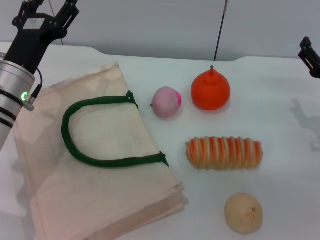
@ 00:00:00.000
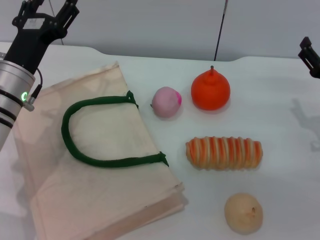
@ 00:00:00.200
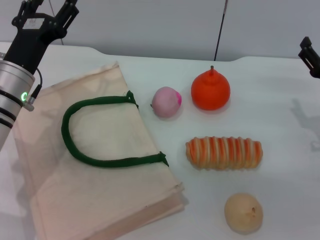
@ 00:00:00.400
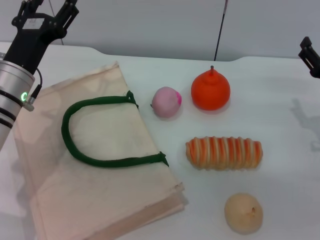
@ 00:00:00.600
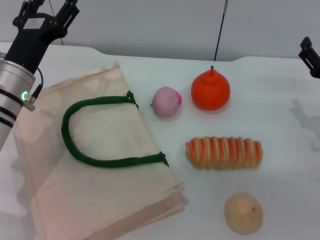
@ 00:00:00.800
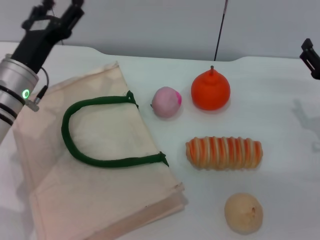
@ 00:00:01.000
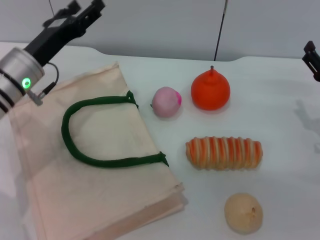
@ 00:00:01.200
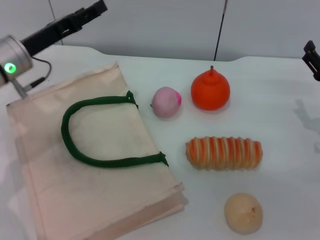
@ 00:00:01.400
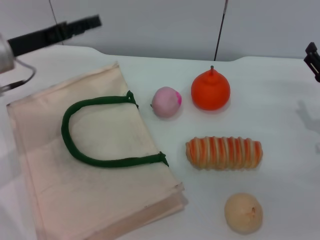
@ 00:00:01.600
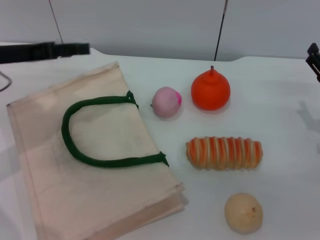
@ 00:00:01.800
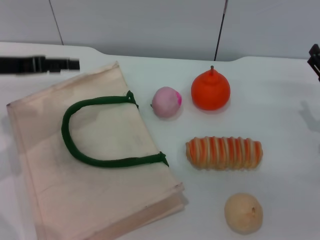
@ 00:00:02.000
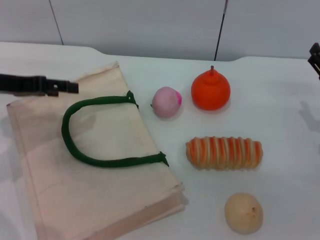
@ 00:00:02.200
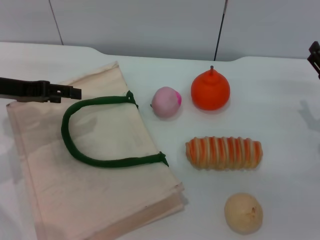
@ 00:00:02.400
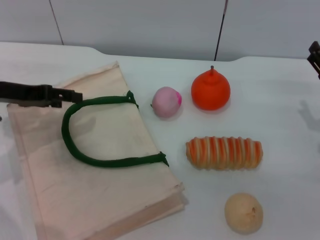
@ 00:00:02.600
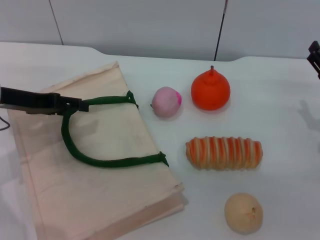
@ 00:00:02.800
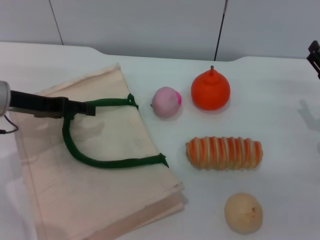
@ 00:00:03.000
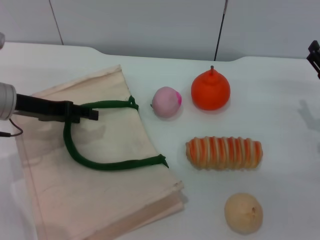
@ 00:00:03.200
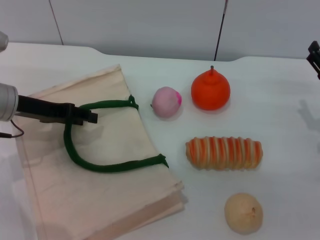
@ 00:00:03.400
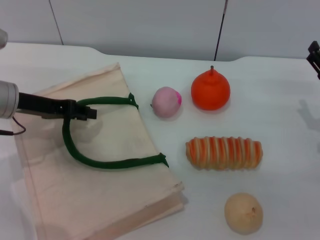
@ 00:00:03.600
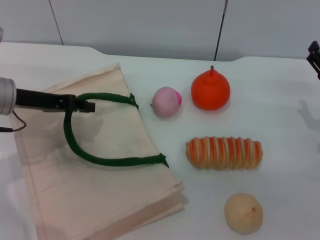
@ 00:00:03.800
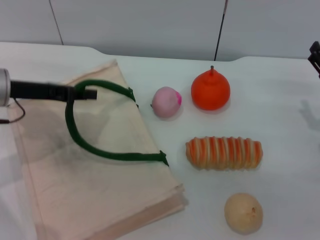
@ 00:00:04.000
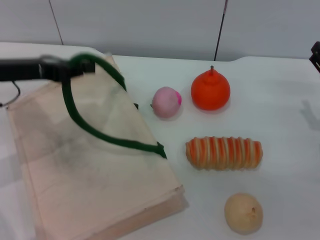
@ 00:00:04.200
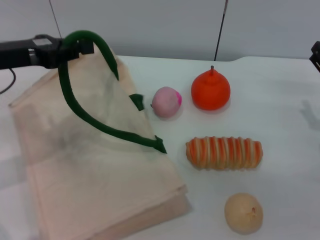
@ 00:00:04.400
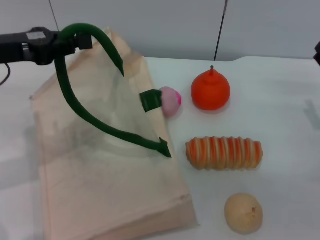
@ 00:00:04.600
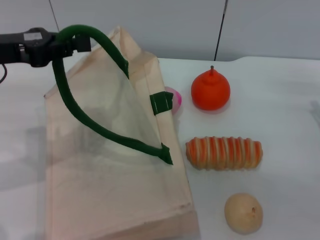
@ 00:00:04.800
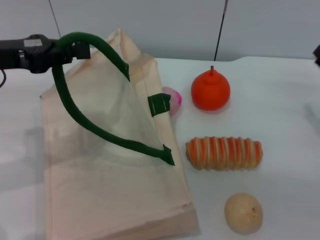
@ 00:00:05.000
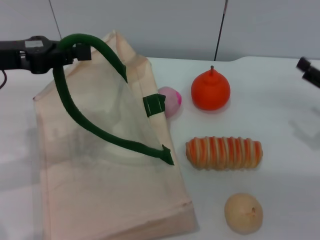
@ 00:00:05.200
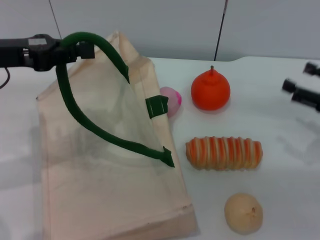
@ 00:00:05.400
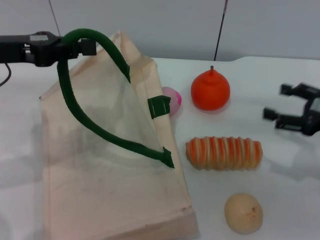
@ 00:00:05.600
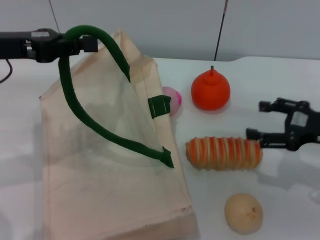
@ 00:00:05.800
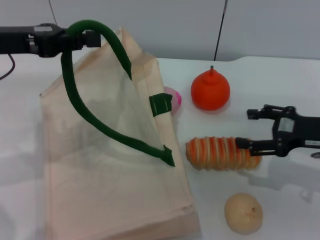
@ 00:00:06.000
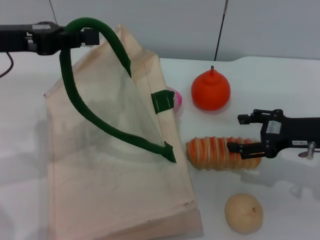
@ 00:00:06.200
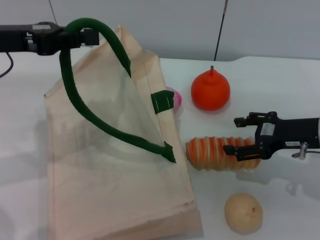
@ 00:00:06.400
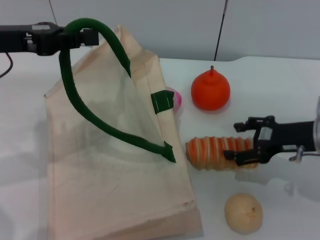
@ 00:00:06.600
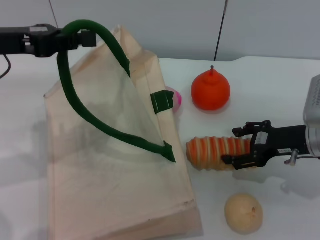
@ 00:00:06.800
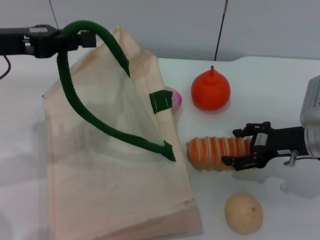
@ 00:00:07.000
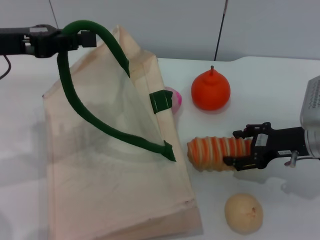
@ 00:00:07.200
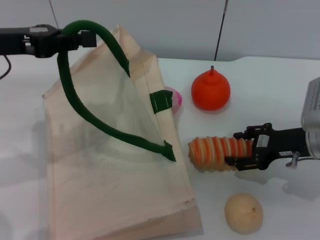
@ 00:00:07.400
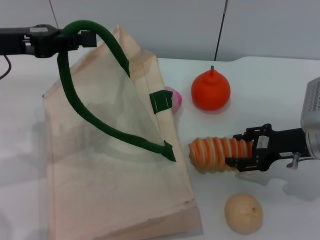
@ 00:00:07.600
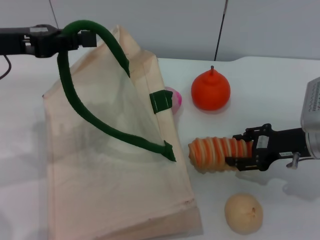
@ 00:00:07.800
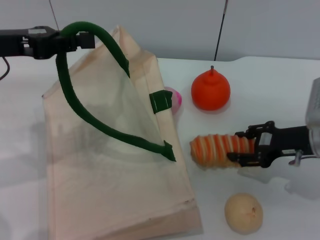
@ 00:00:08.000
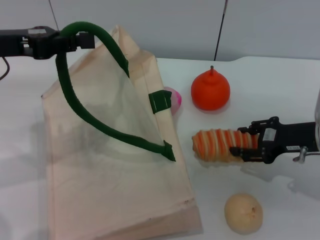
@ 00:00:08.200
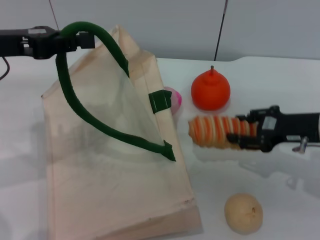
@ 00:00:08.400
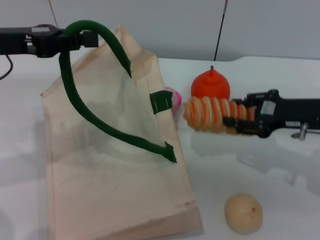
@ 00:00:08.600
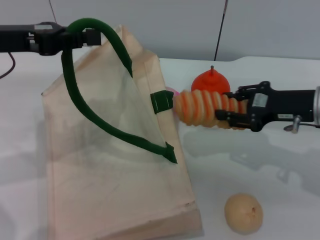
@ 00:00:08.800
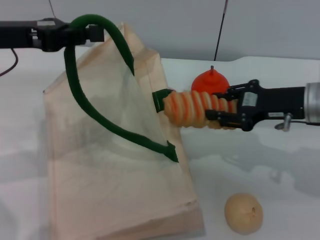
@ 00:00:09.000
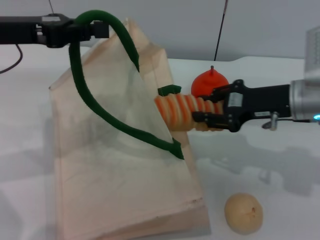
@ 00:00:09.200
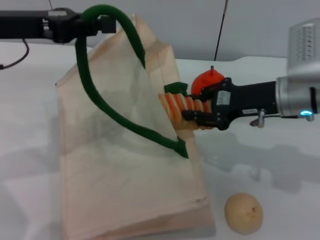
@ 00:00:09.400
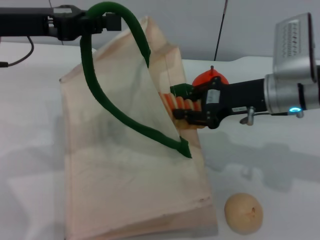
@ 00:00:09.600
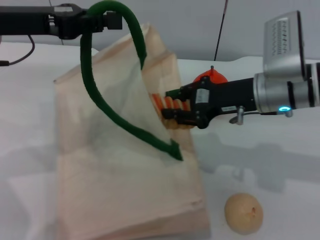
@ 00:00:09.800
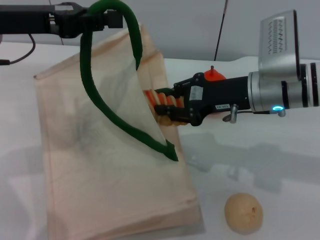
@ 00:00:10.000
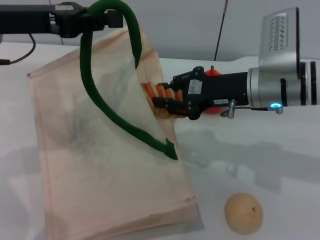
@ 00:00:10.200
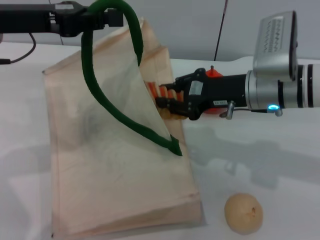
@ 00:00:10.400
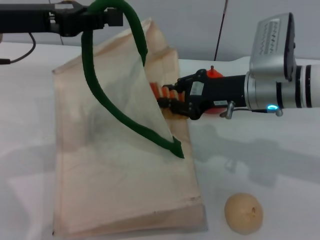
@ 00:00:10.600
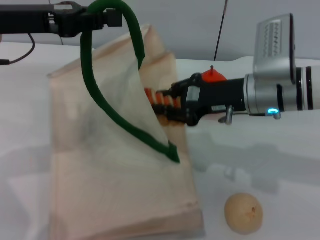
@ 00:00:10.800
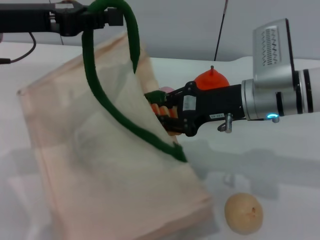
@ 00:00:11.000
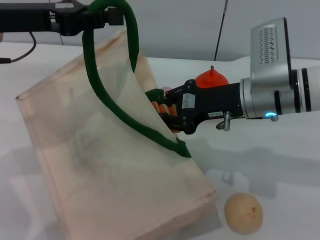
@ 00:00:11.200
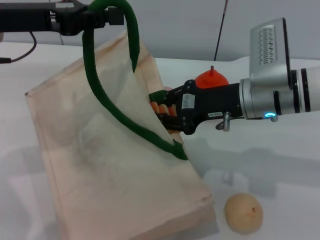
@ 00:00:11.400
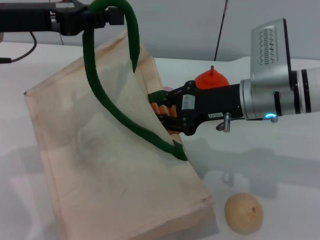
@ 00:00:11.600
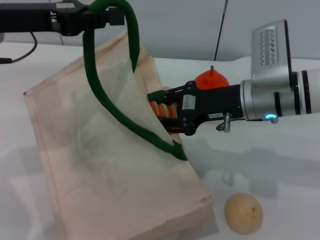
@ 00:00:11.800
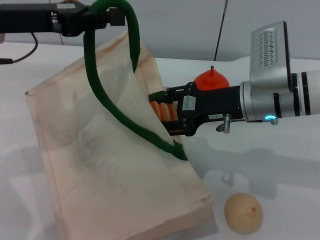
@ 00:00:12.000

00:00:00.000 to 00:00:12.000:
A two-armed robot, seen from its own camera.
Task of the whole recording: pick up the bread from the table and place it in the white handbag.
Step, 00:00:00.000 to 00:00:04.600: Lift the woven bag with the left gripper to open it.
Step, 00:00:05.000 to 00:00:08.400: Pick up the bread with the right gripper.
00:00:00.000 to 00:00:01.600: The left gripper shifts approximately 10 cm upward and to the left.
00:00:03.000 to 00:00:04.400: The left gripper is displaced upward by about 5 cm, and closes.
00:00:06.000 to 00:00:07.600: The grippers stay close to where they were, moving slightly.
00:00:07.600 to 00:00:09.000: The right gripper travels upward by approximately 5 cm, and closes its fingers.
00:00:09.000 to 00:00:10.400: The right gripper heads to the left, covering roughly 10 cm.
00:00:10.400 to 00:00:12.000: The grippers stay close to where they were, moving slightly.

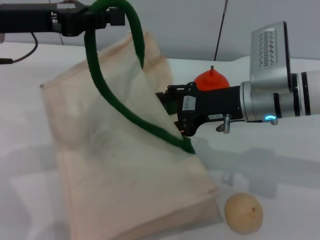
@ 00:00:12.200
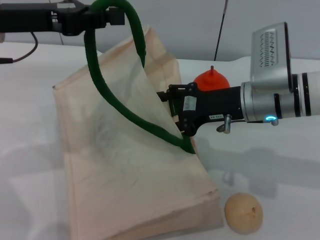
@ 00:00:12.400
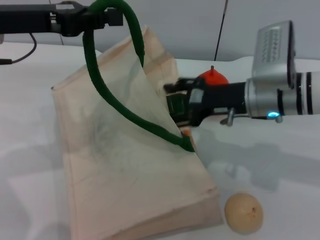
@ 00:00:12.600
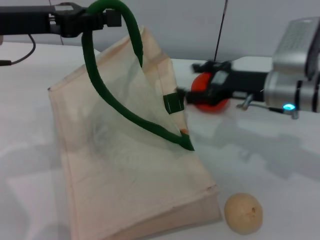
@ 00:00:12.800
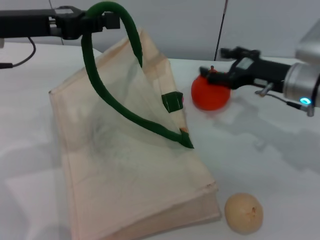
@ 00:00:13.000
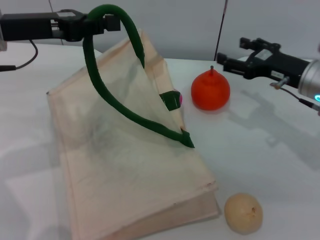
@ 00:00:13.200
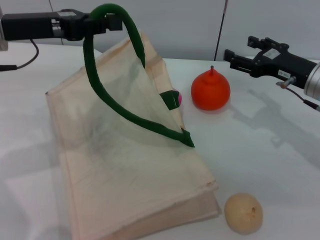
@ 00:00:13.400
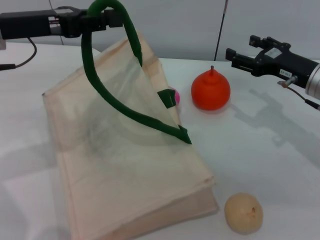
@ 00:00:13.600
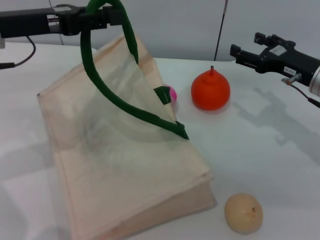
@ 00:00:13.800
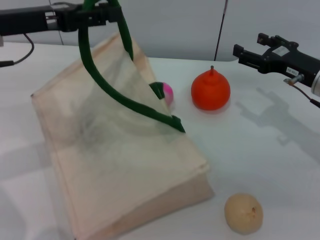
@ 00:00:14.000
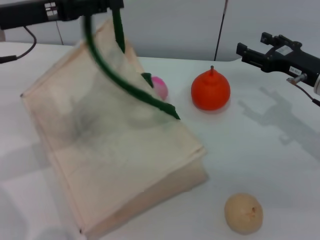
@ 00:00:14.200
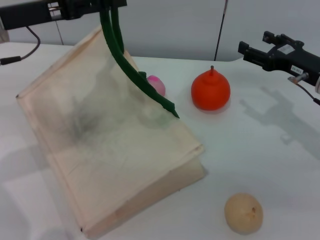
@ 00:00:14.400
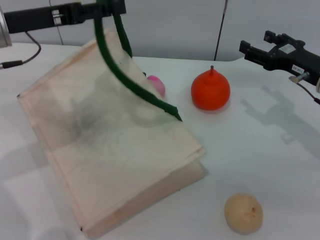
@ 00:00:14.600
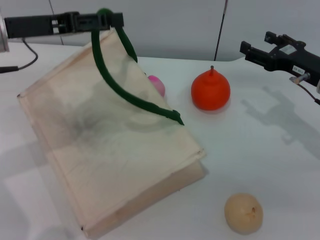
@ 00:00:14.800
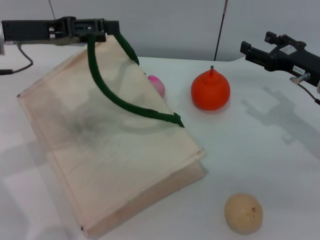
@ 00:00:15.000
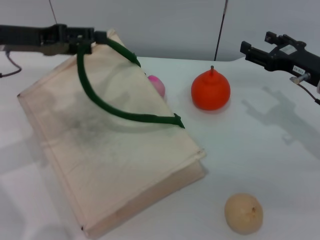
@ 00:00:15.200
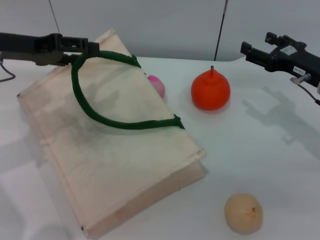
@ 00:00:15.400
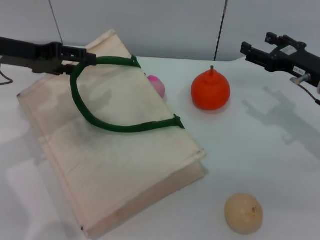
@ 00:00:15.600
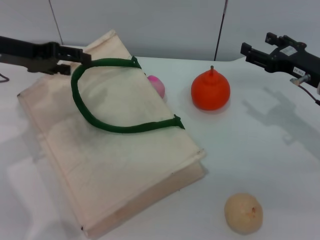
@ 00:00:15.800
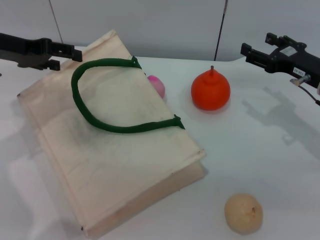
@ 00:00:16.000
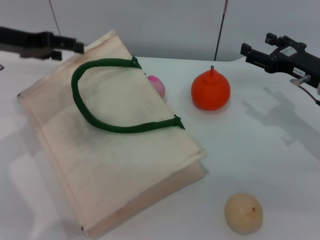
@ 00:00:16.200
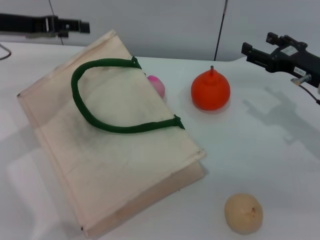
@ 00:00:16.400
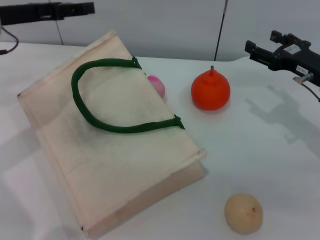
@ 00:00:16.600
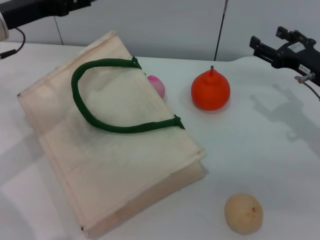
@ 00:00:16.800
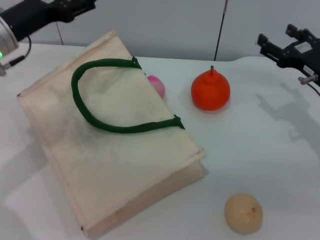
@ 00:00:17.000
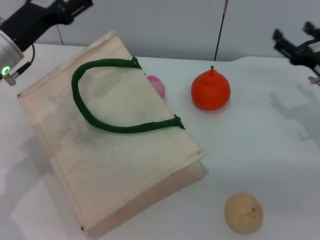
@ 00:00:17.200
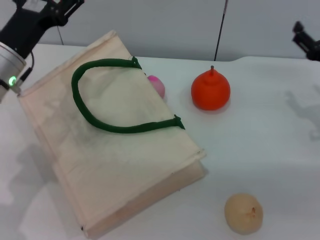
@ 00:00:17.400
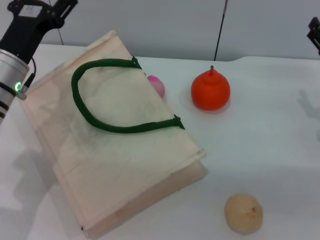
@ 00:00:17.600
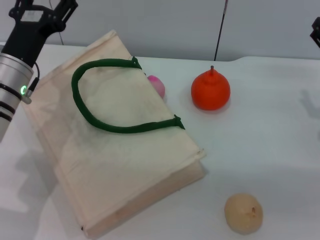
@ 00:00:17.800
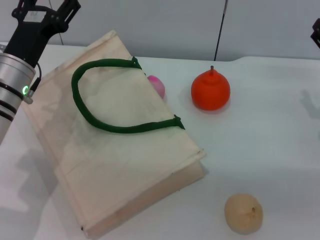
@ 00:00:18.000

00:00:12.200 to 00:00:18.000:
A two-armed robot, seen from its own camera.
Task of the whole recording: pick up the bread from the table and place it in the white handbag.
Step, 00:00:12.600 to 00:00:15.800: Lower the woven bag with the left gripper to close it.
00:00:12.200 to 00:00:13.600: The right gripper travels to the right by about 10 cm, and opens up.
00:00:13.600 to 00:00:15.000: The left gripper opens up.
00:00:16.600 to 00:00:18.000: The left gripper heads downward, to the right and backward, covering about 15 cm.
